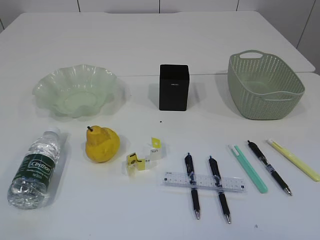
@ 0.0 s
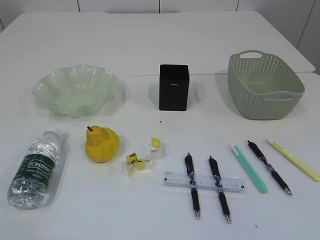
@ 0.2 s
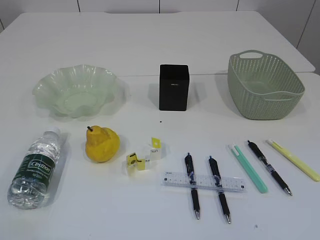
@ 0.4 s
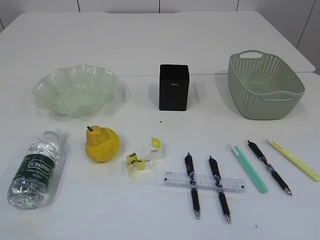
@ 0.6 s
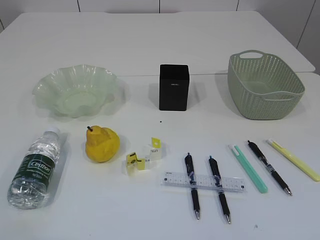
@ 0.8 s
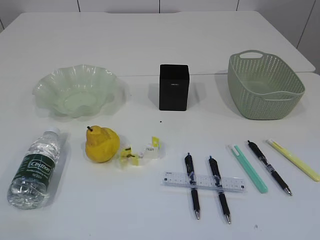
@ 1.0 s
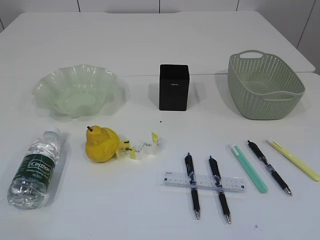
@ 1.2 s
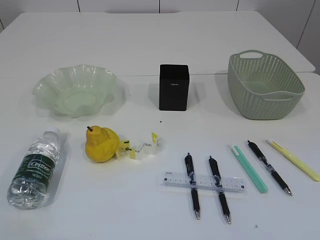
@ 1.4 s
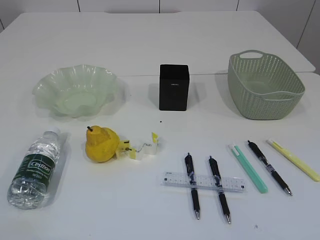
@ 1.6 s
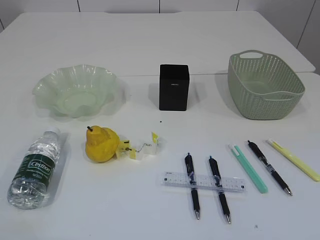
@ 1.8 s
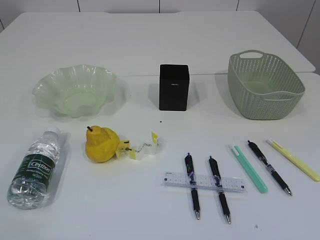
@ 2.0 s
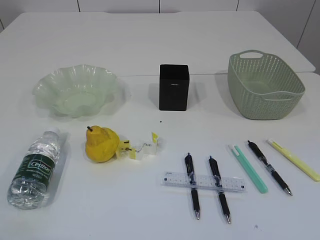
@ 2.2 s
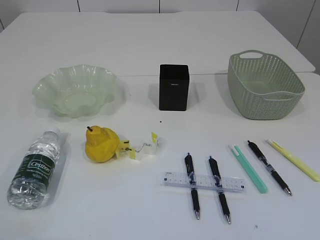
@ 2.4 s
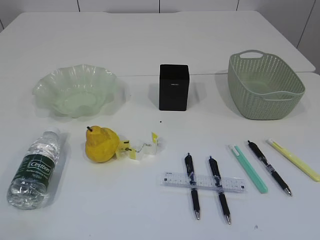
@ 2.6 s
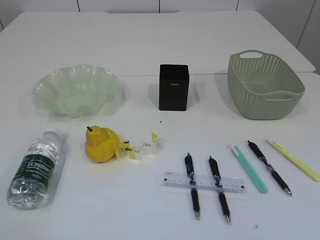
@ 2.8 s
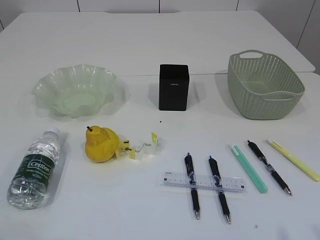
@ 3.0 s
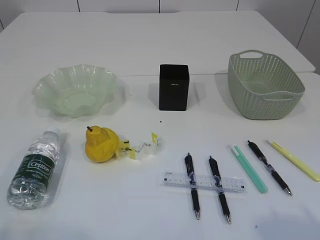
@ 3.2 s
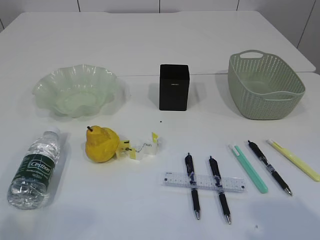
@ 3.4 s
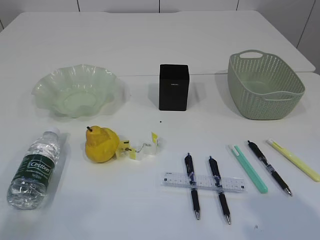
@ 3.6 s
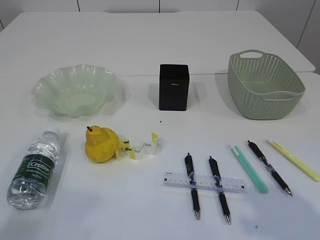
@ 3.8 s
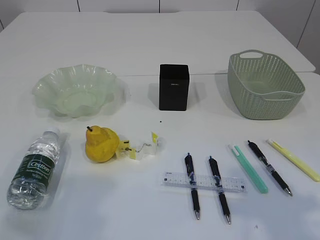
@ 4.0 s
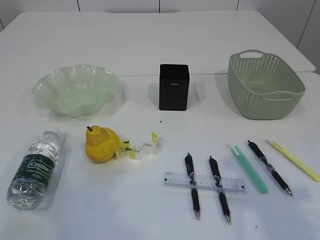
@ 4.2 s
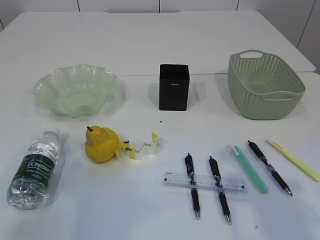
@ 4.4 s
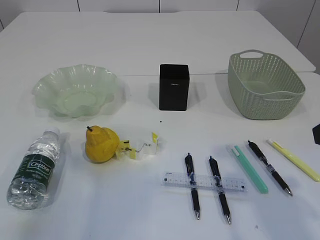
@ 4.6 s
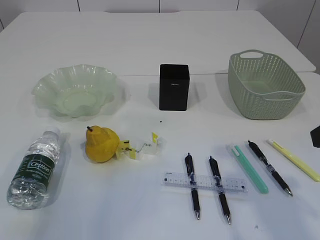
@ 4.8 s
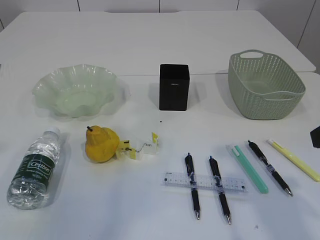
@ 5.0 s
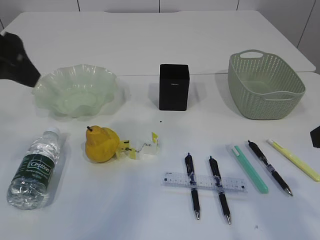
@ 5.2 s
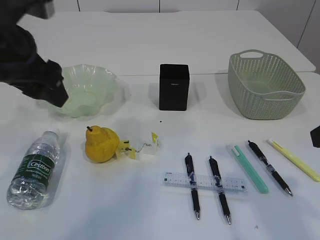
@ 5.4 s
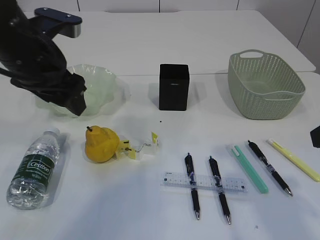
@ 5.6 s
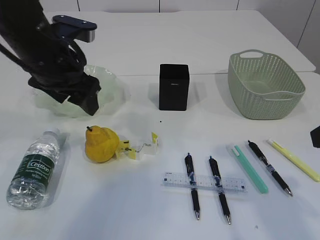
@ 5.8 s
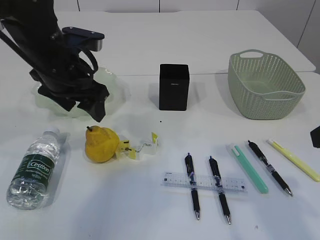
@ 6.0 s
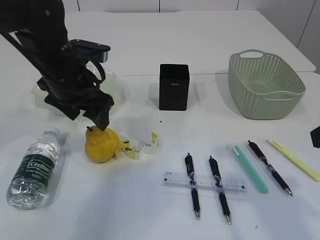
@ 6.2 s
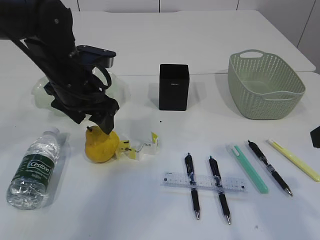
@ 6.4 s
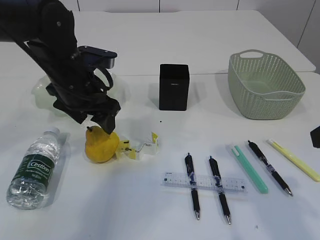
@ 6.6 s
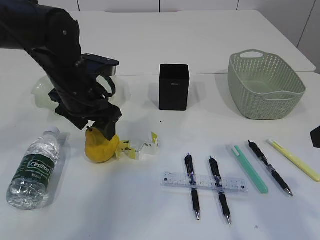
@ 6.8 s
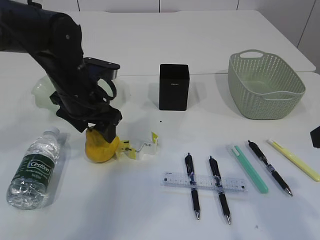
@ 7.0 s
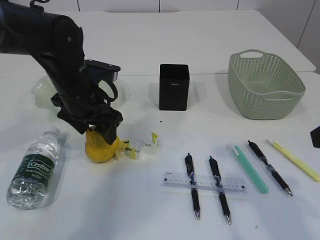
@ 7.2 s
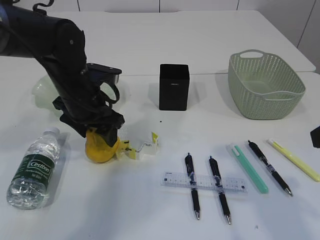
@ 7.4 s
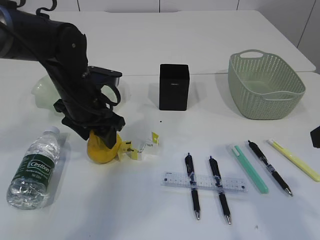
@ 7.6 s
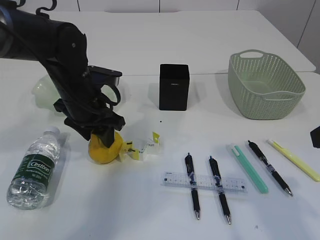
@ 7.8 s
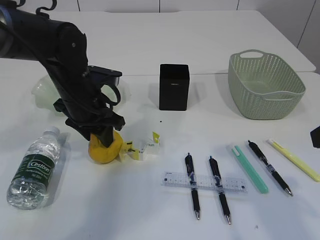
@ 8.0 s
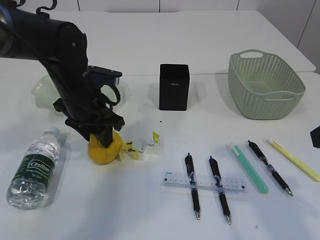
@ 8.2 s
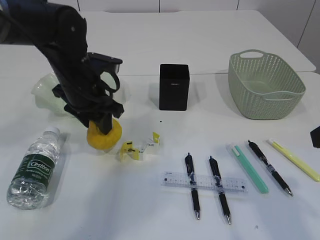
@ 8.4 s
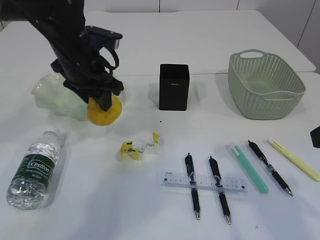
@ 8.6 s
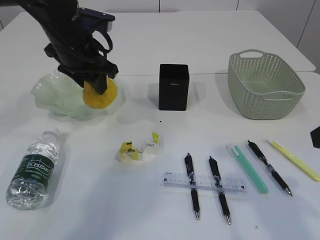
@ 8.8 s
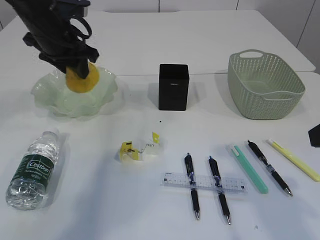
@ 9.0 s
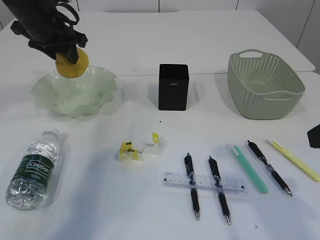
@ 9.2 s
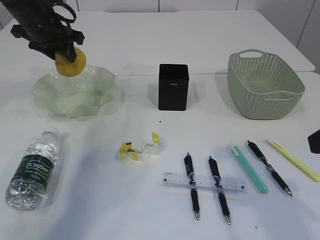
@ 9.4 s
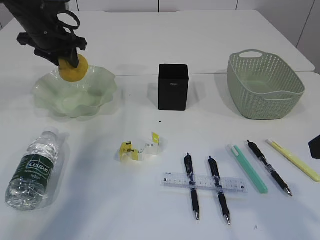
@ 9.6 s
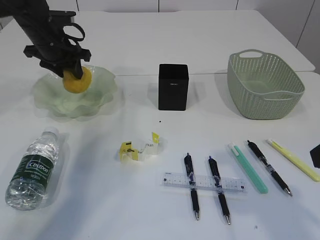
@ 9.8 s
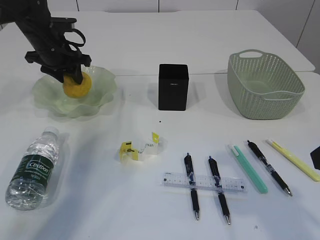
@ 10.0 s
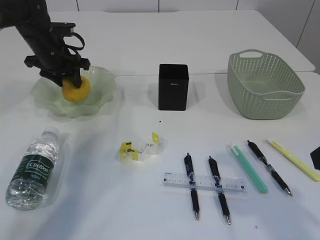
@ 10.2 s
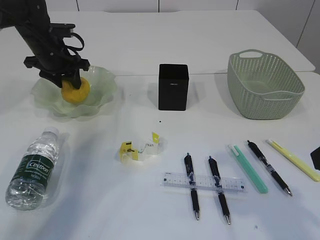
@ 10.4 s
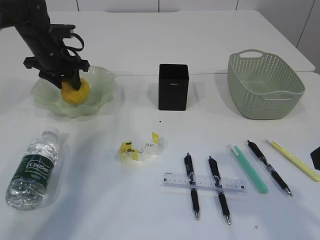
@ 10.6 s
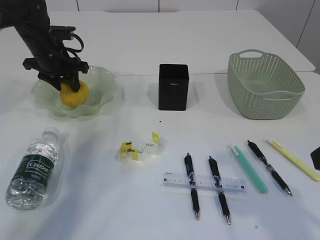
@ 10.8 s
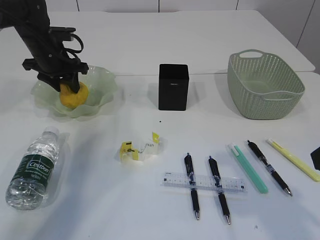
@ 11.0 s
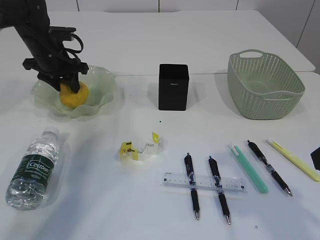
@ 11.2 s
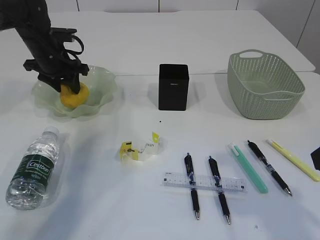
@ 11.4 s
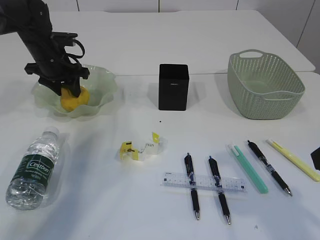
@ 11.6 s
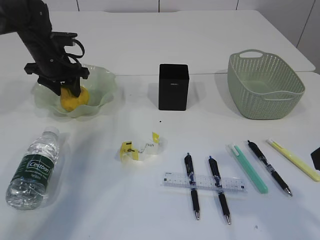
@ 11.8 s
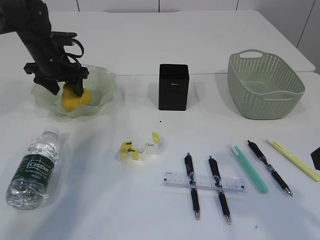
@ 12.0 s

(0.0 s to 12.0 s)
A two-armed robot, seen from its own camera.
3.0 s - 4.4 s: The right gripper shifts roughly 15 cm forward, while the left gripper goes some 15 cm forward and upward.
4.4 s - 6.0 s: The left gripper goes roughly 30 cm forward, to the right and downward, and opens its fingers.
6.0 s - 7.6 s: The left gripper heads downward, covering roughly 5 cm.
7.6 s - 9.0 s: The left gripper goes about 10 cm upward, forward and to the left, and closes its fingers.
9.0 s - 10.4 s: The left gripper travels forward and downward by roughly 10 cm.
10.4 s - 12.0 s: The left gripper opens.

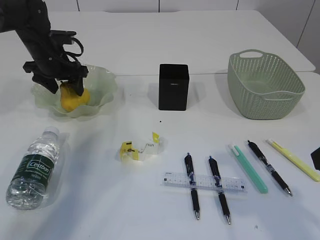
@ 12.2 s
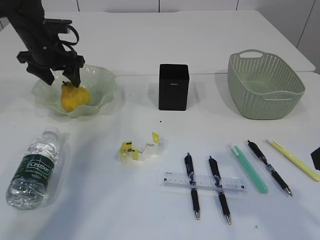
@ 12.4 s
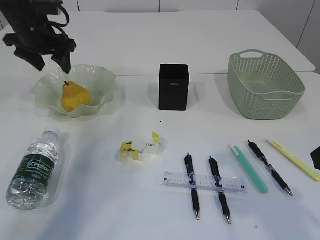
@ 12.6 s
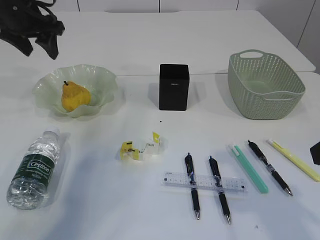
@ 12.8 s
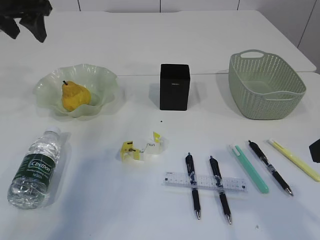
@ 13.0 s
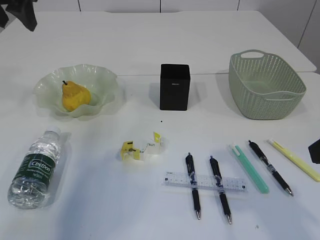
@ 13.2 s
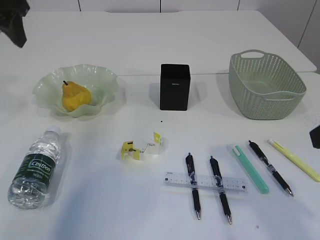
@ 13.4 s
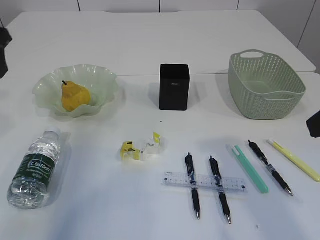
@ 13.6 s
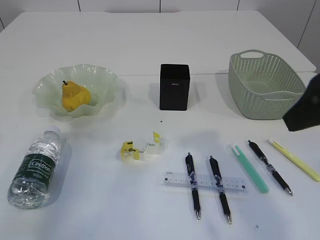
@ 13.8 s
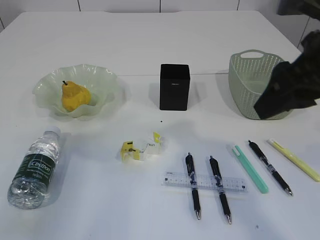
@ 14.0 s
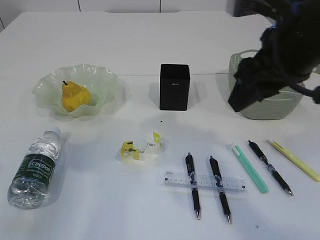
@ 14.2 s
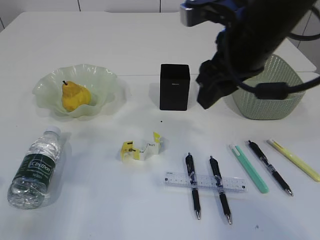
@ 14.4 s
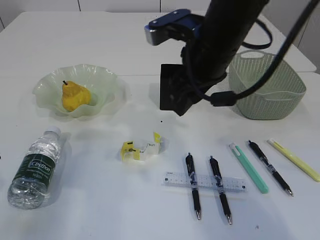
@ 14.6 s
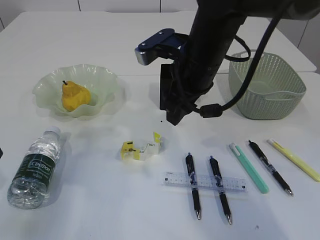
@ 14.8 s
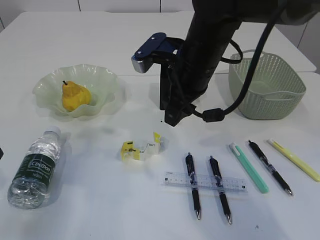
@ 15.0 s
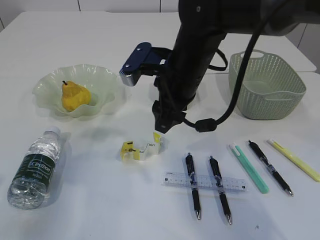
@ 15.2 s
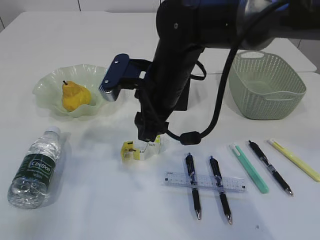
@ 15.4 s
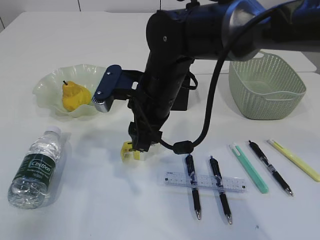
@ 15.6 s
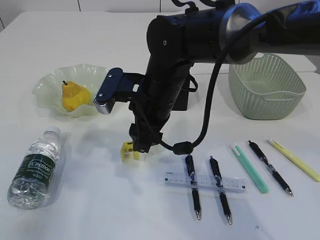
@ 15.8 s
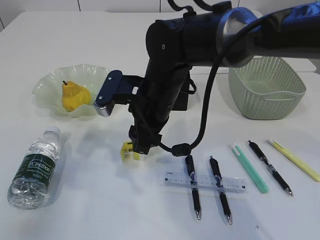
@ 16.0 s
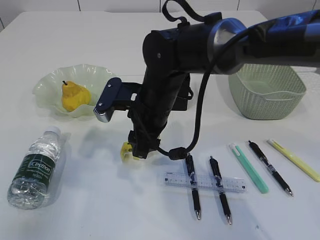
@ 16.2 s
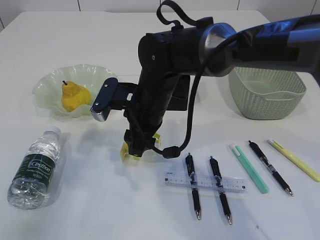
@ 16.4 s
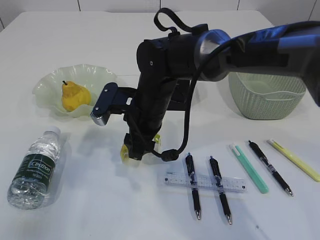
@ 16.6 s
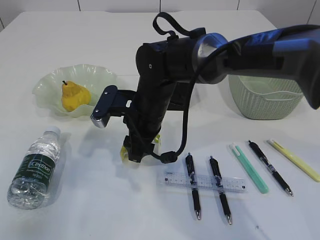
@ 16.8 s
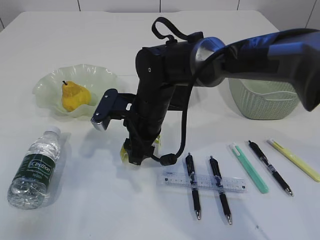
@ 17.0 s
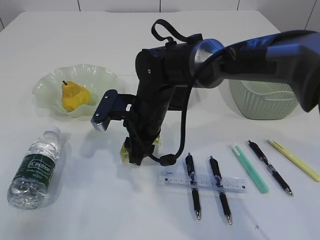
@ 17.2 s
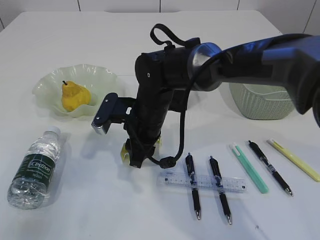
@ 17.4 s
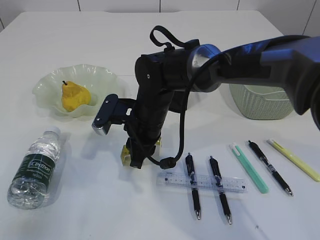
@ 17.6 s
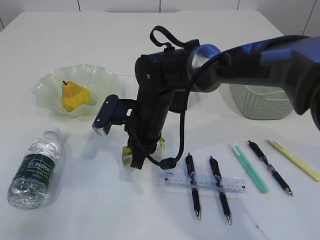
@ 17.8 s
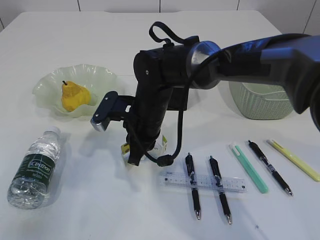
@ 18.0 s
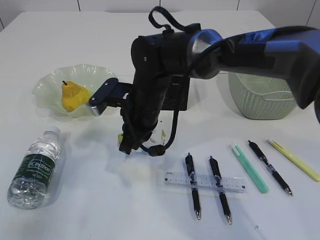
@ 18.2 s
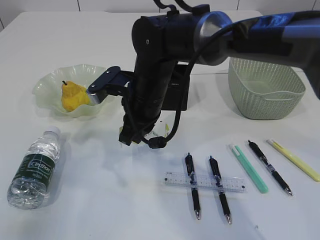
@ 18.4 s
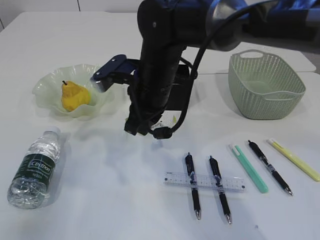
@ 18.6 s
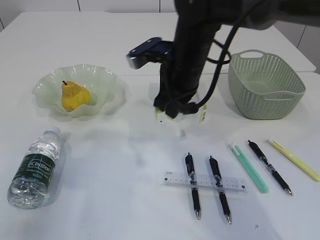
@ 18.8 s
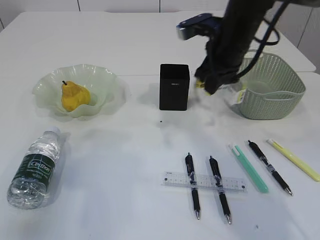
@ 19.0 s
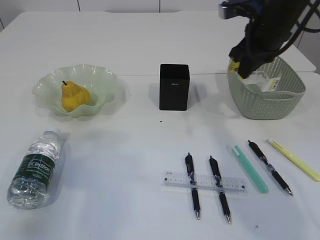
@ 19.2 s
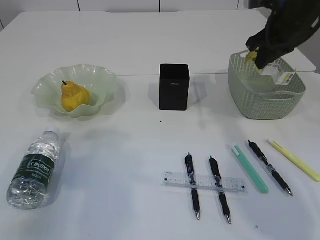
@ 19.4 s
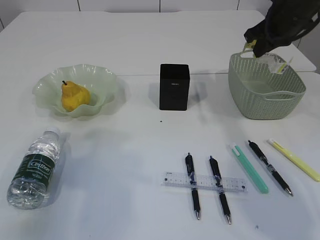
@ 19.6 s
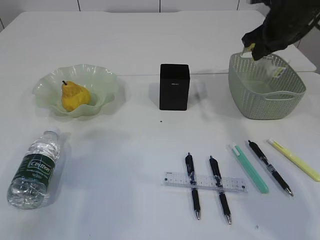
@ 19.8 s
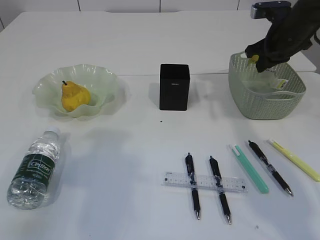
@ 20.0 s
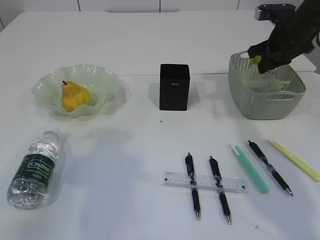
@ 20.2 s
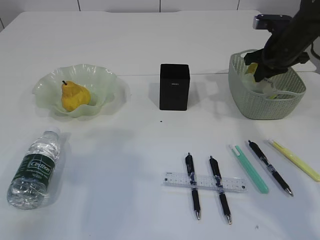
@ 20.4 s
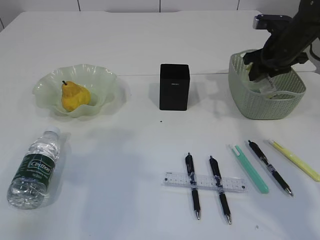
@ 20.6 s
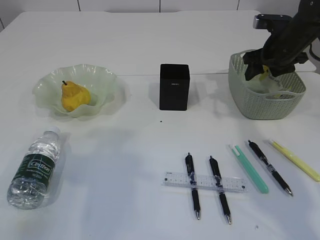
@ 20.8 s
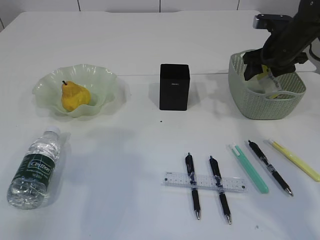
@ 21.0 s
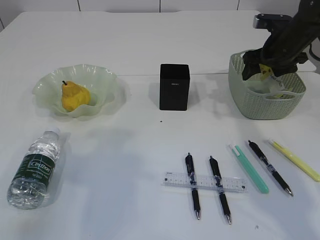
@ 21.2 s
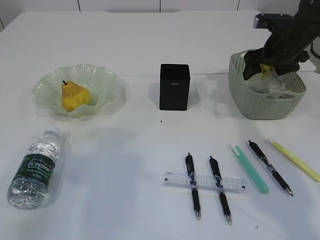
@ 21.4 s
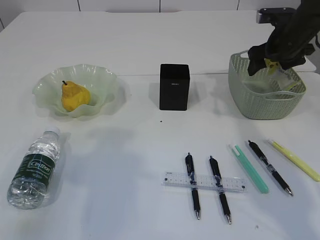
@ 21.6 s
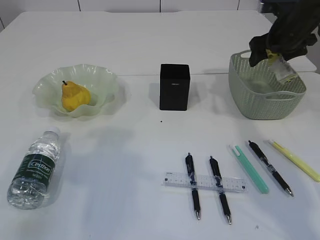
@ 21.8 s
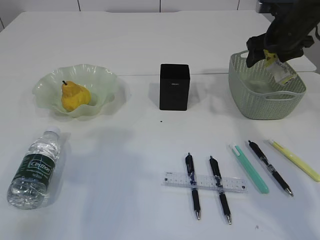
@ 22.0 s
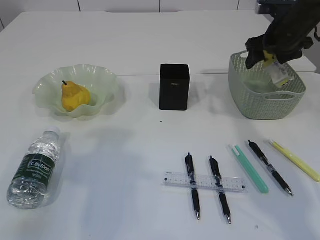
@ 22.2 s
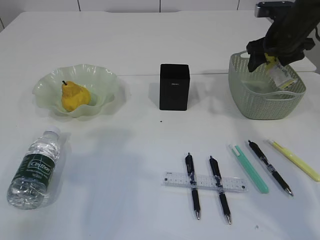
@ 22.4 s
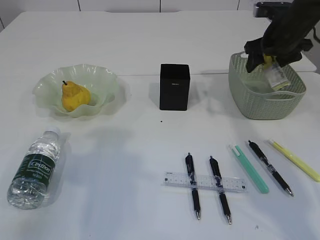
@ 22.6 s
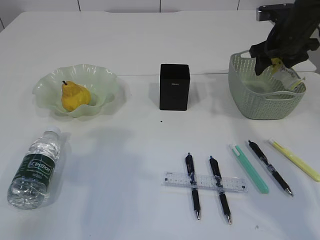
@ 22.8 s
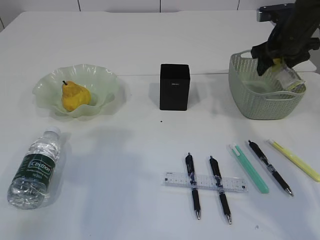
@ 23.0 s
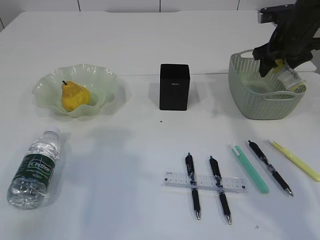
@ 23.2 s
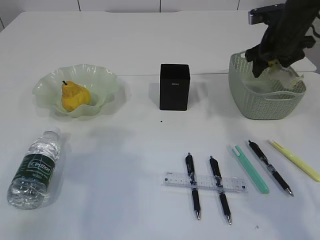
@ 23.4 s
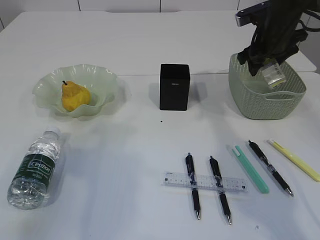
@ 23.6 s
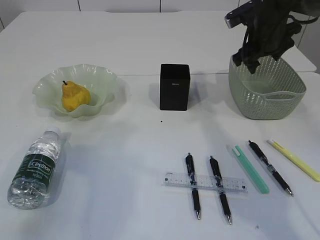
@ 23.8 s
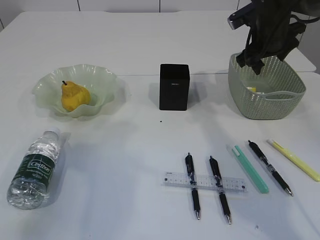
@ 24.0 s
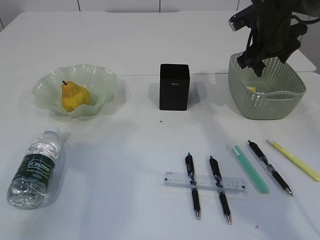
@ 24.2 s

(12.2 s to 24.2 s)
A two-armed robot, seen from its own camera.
Step, 12.6 s - 18.2 s: Pick up the waste paper.
12.2 s - 13.8 s: The right gripper ends up roughly 5 cm from where it was, while the left gripper shifts some 25 cm backward and upward, and closes up.
13.8 s - 15.2 s: The left gripper moves backward and downward, about 10 cm, while the right gripper moves to the left, forward and downward, about 25 cm.
15.2 s - 16.6 s: The right gripper is displaced downward by roughly 5 cm.
16.6 s - 18.2 s: The right gripper closes its fingers.
18.2 s - 19.8 s: The right gripper goes some 25 cm to the right.
19.8 s - 21.2 s: The right gripper shifts some 5 cm downward, and opens.
21.2 s - 22.6 s: The grippers stay close to where they were, moving slightly.
22.6 s - 24.2 s: The right gripper heads to the left, covering about 5 cm.
